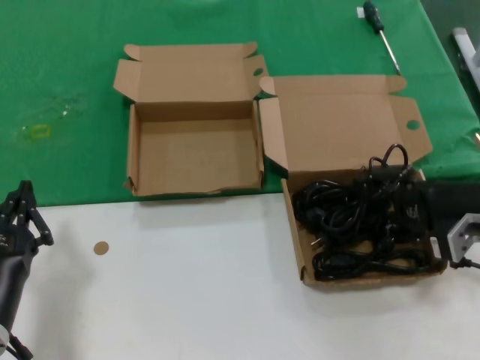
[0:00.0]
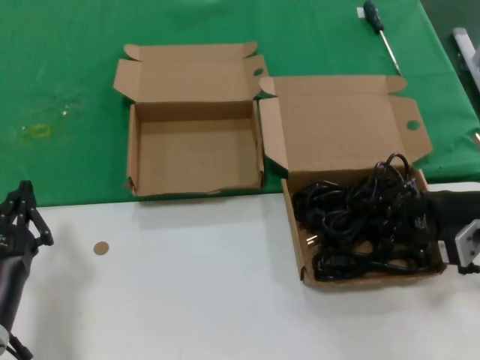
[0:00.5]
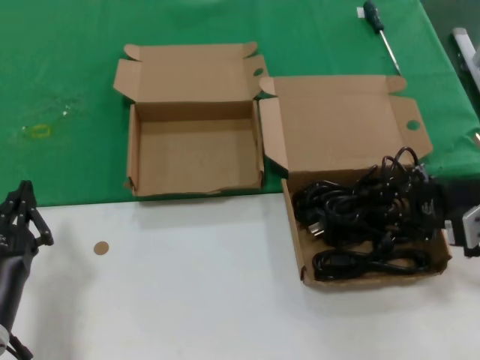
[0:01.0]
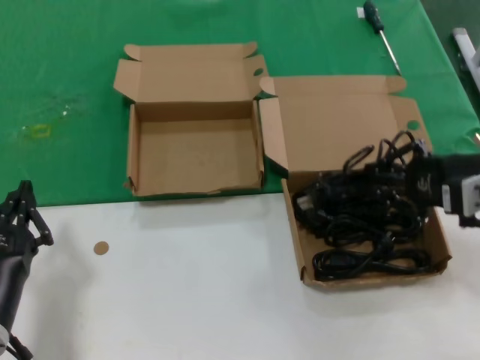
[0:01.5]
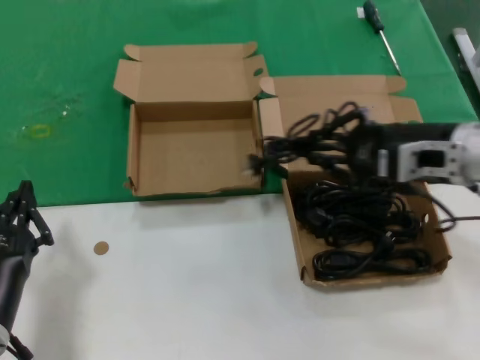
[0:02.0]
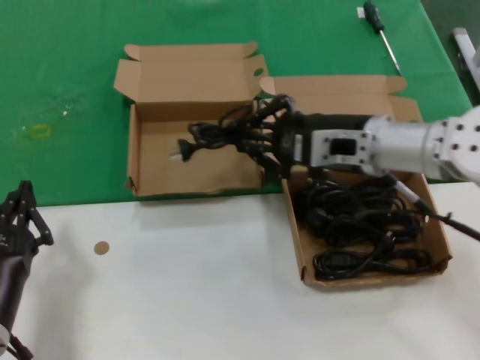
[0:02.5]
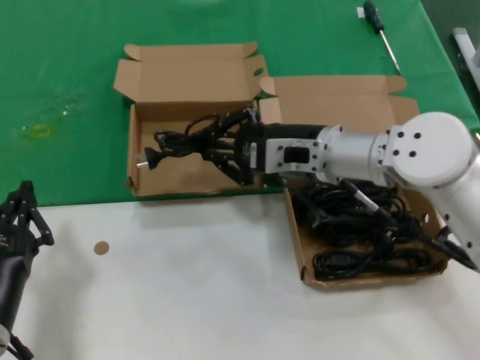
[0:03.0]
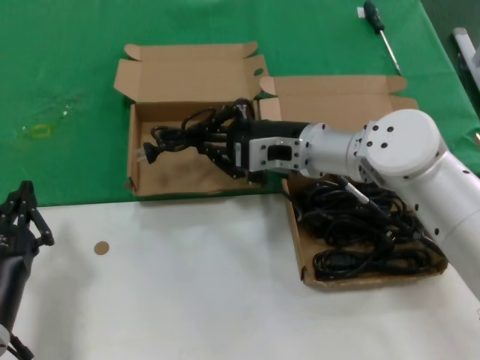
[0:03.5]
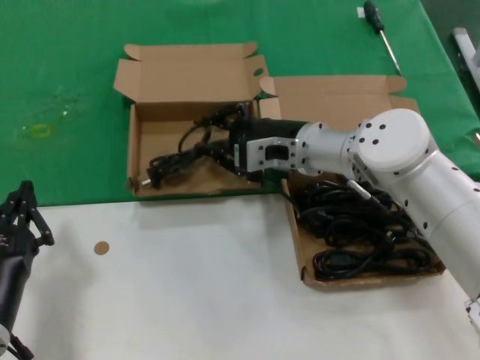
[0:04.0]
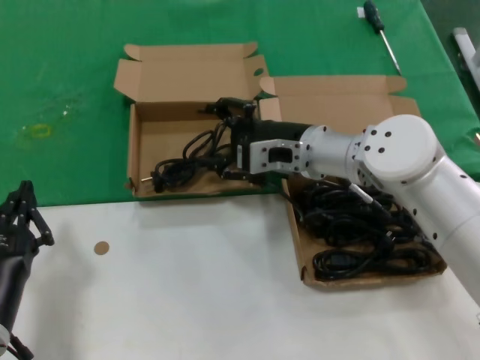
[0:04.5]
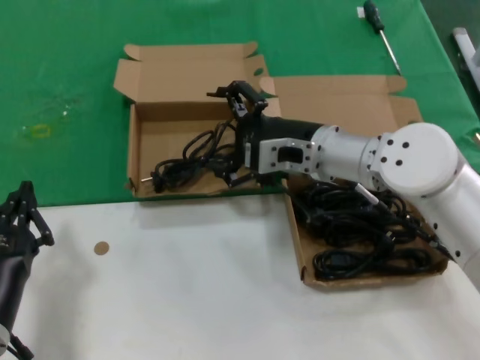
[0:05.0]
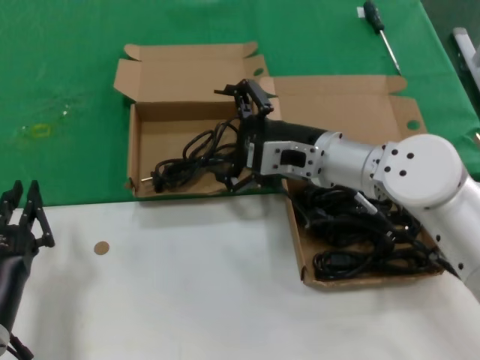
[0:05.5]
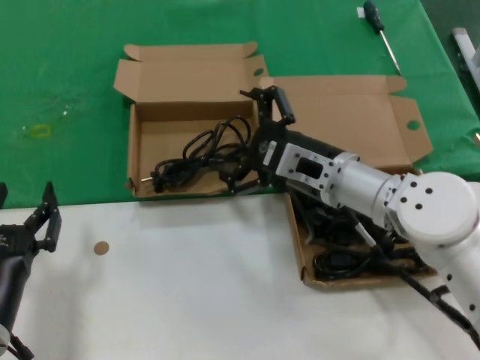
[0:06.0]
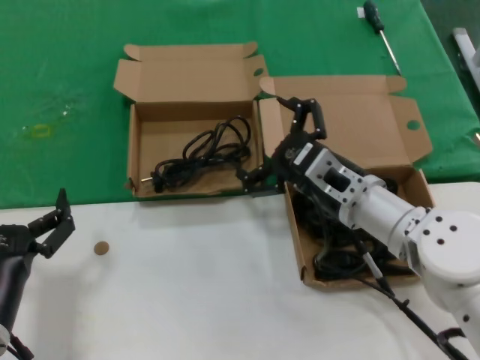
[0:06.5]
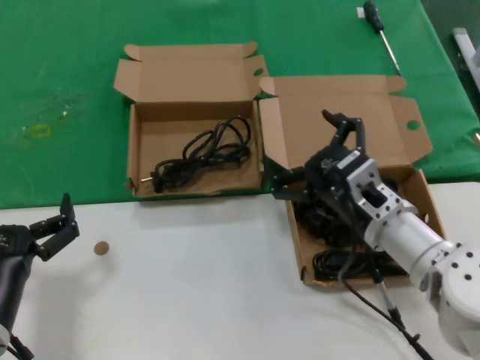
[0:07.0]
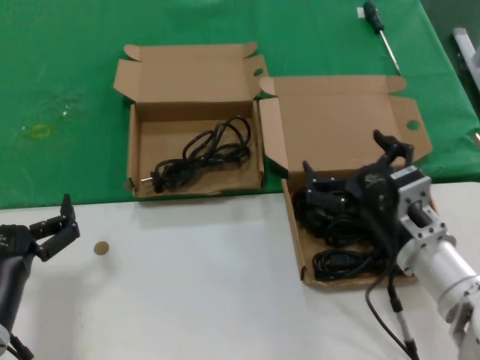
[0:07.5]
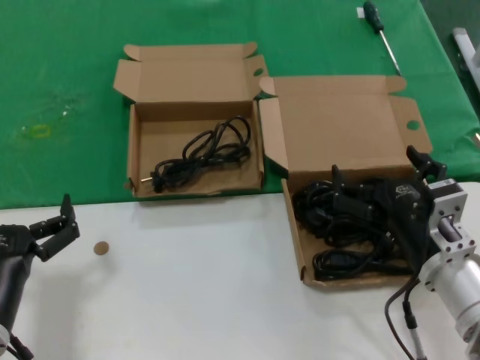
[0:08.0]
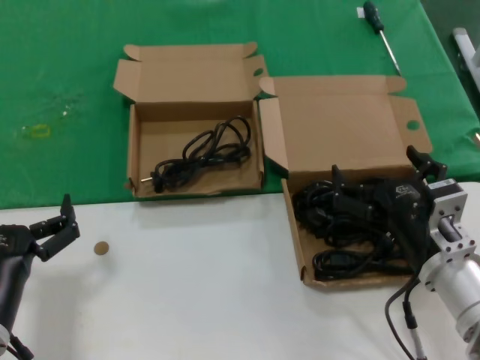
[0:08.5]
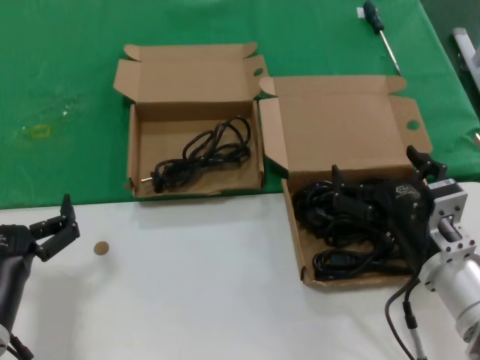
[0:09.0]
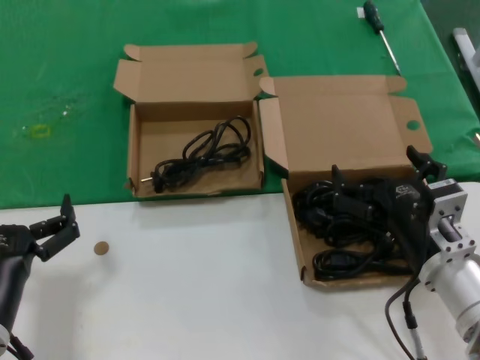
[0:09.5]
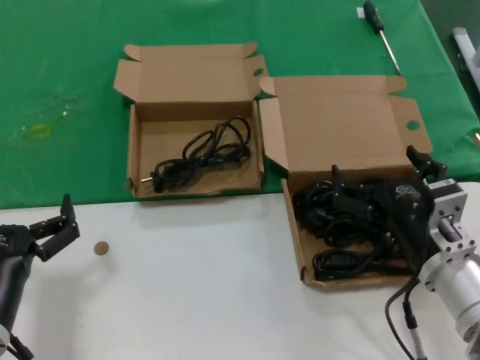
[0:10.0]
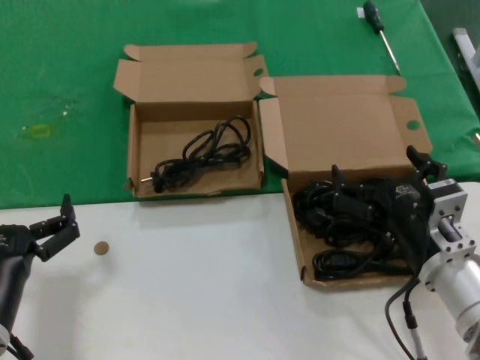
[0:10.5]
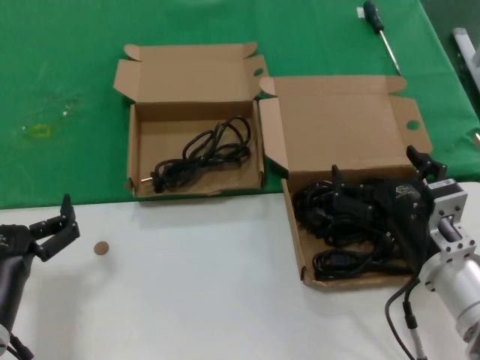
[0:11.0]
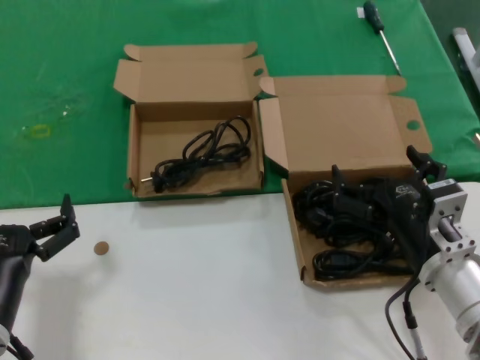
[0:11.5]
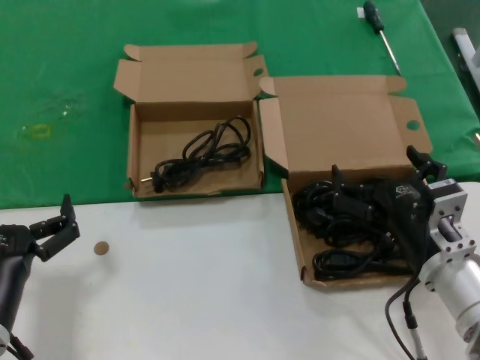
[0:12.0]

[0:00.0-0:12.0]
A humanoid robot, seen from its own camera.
Task of the whole recording: take the parts from the box containing them and put them into an empty box.
Step, 0:00.5 to 0:04.5: Place the data cable in the another box.
0:00.0 to 0:02.0: The right hand moves upward and to the left, roughly 10 cm.
0:02.0 to 0:04.0: The right hand travels to the left and forward by about 20 cm.
0:04.0 to 0:06.0: The right hand heads backward, covering about 5 cm.
0:06.0 to 0:08.0: The right hand moves backward, to the right and downward, approximately 15 cm.
0:08.0 to 0:12.0: Both hands stay put.

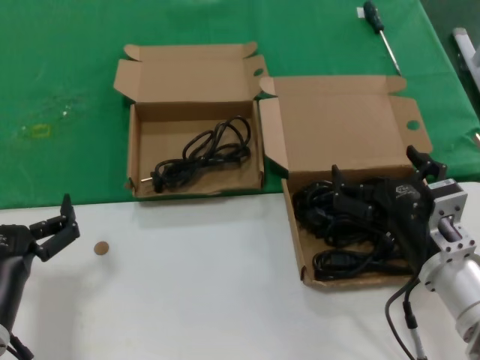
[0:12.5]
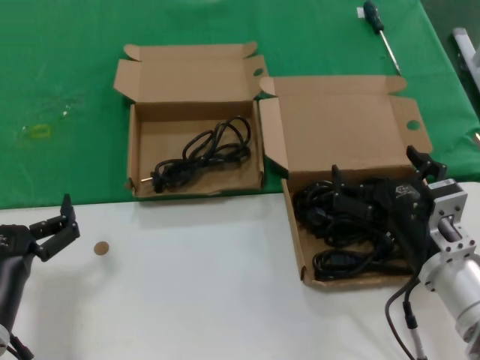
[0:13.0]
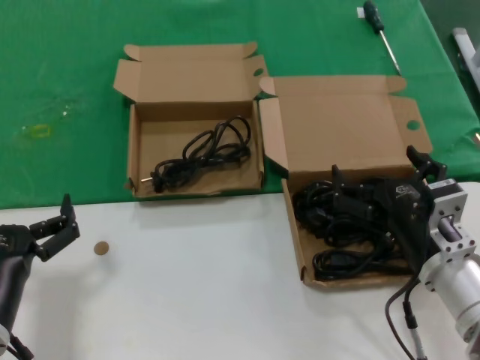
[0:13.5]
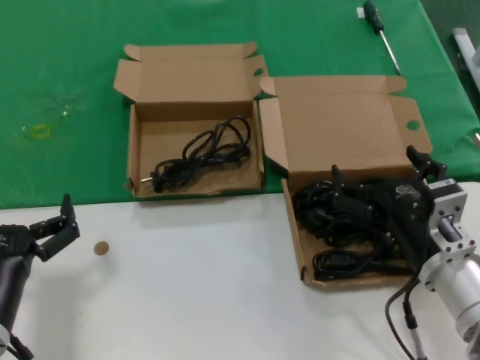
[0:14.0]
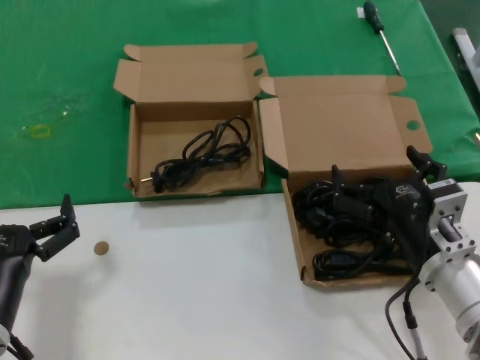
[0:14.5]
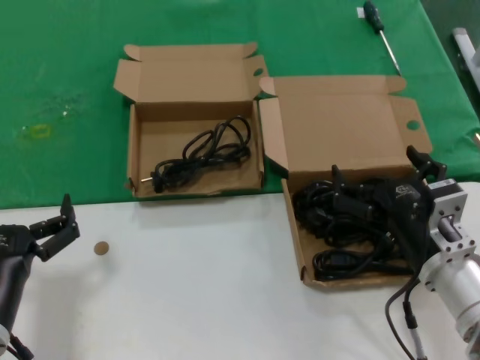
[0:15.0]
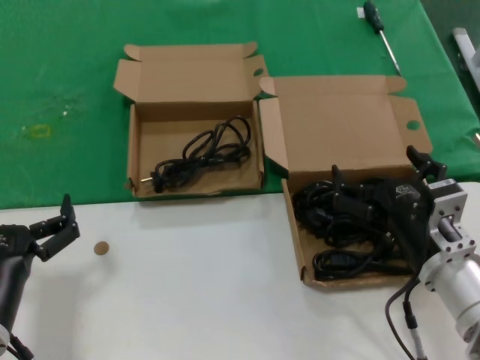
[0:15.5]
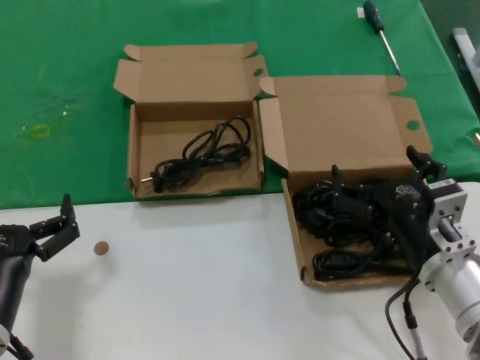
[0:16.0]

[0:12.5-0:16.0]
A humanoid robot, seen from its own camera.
Task of the whole recording: take the parts from the box containing them and put them into an empty box.
0:12.5 to 0:16.0: Both hands stay about where they are.

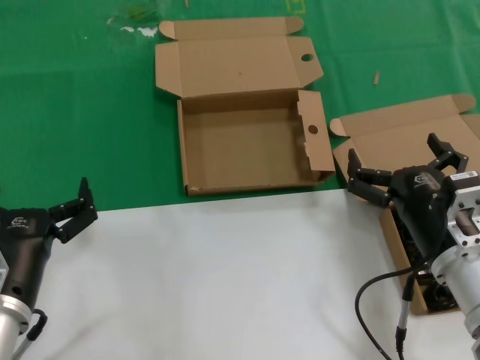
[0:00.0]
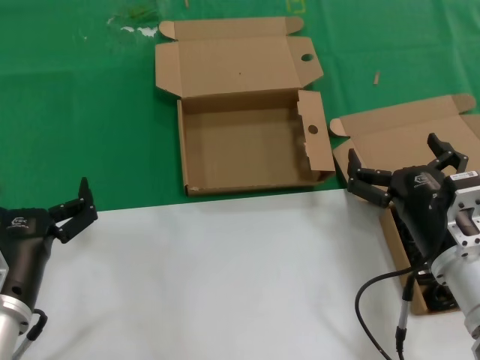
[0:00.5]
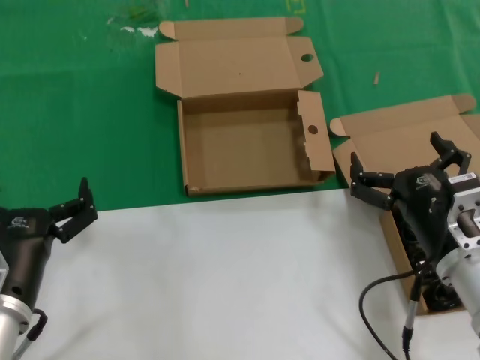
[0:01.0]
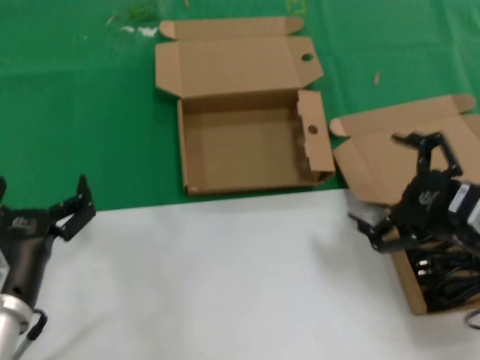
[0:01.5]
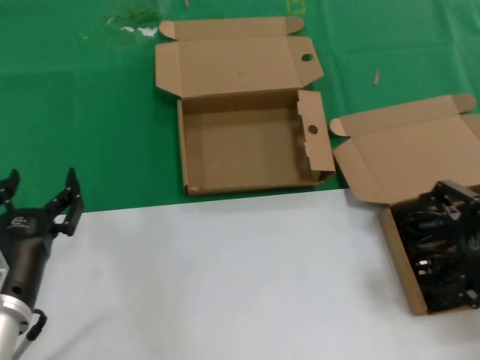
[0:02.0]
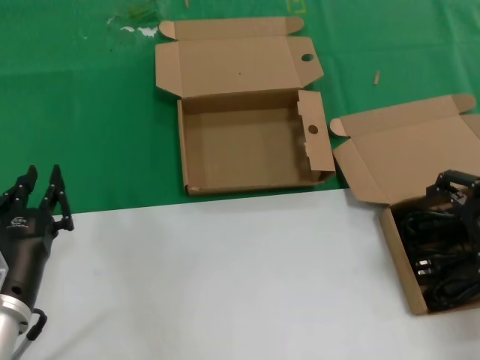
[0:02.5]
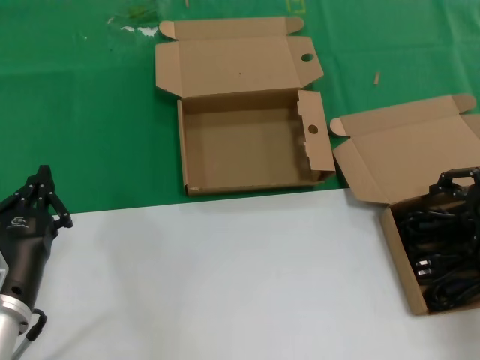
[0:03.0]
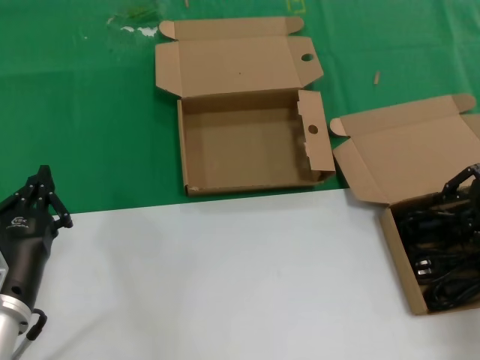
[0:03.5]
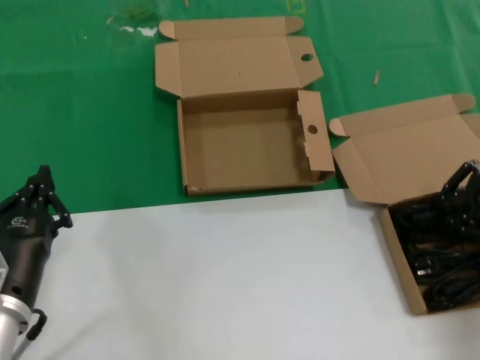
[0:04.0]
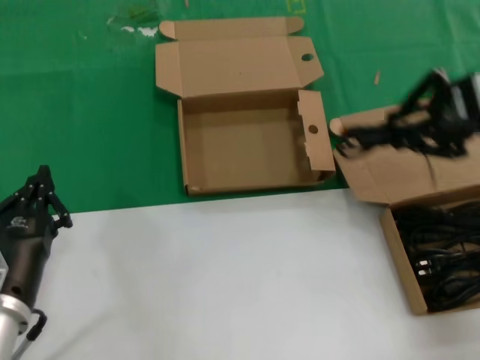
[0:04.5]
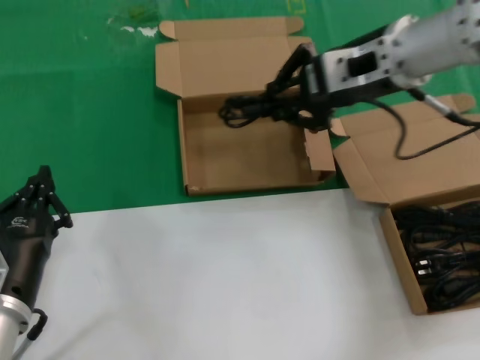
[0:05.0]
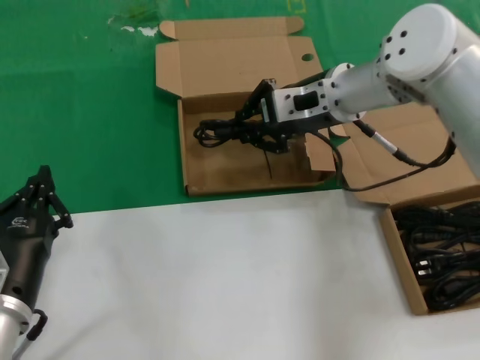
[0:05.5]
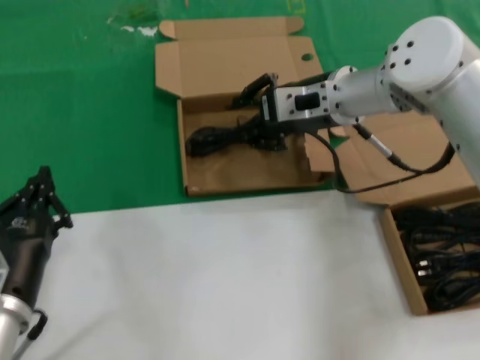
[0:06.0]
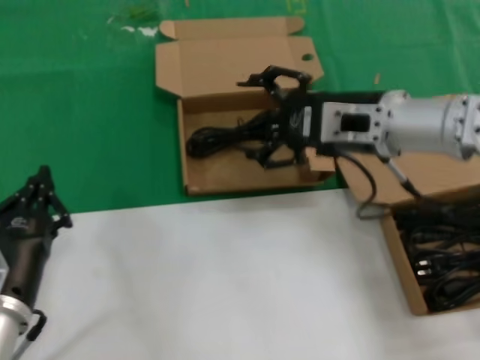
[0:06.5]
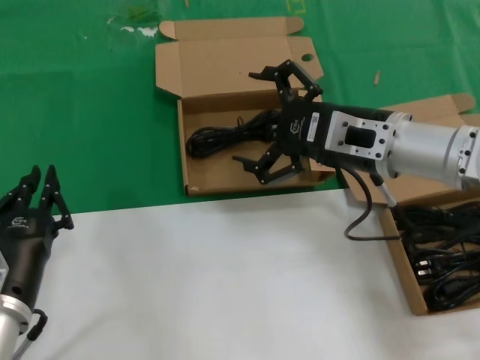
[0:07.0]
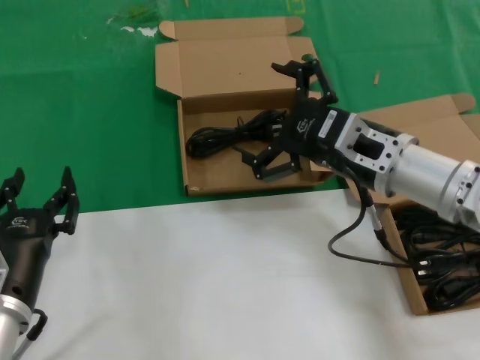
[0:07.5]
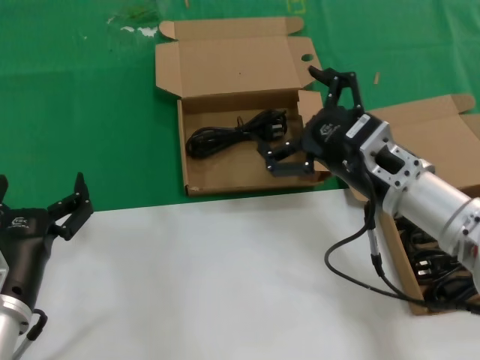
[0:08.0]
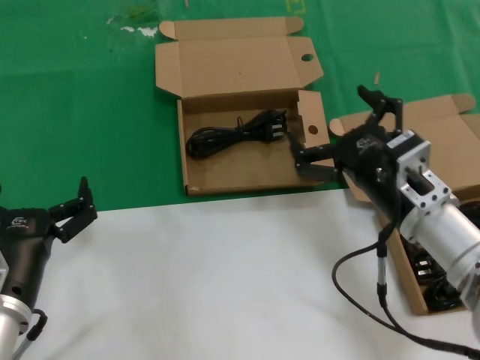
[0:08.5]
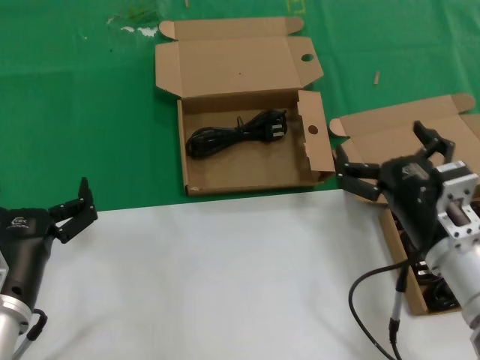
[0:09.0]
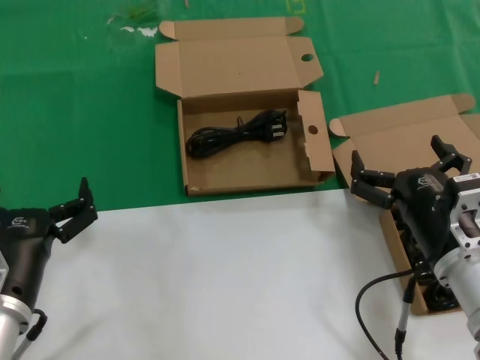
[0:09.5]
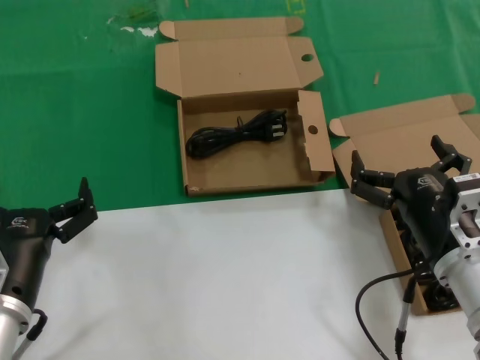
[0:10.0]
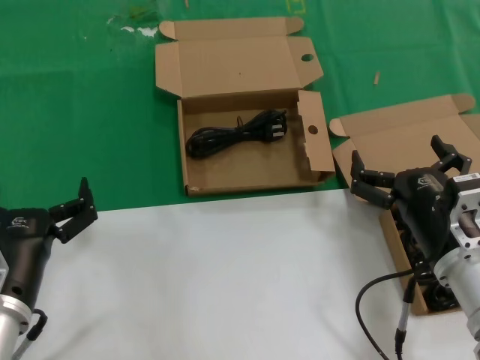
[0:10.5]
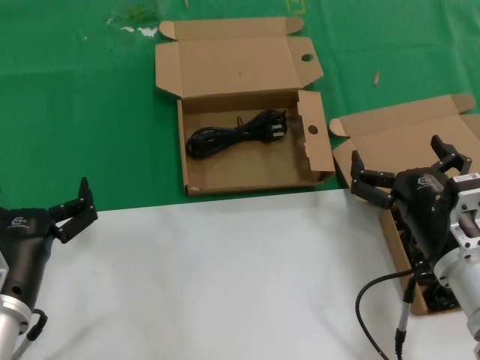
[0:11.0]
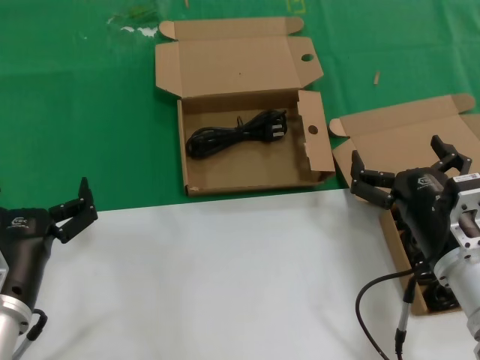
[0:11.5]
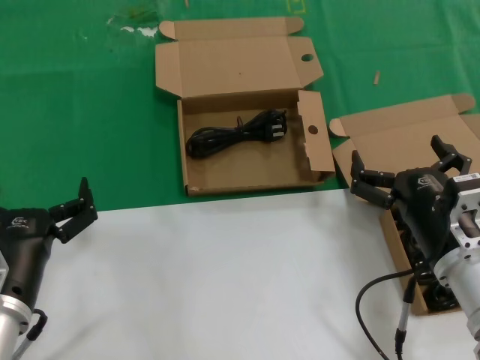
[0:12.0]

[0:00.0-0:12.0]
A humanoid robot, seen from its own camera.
Task of the whole recording: take the parts from the box containing them and put them into an empty box.
Step, 0:00.0 to 0:03.5: Grasp the data cable.
Step, 0:04.0 to 0:06.0: Place the data cable in the another box.
0:00.0 to 0:02.0: The right hand moves upward and to the right, roughly 20 cm.
0:02.0 to 0:04.0: The right hand shifts roughly 10 cm forward.
0:04.0 to 0:06.0: The right hand moves to the left and forward, approximately 25 cm.
0:06.0 to 0:08.0: The right hand travels backward and downward by some 20 cm.
0:08.0 to 0:10.0: The right hand is displaced downward and backward by some 10 cm.
0:10.0 to 0:12.0: Both hands stay about where they are.
